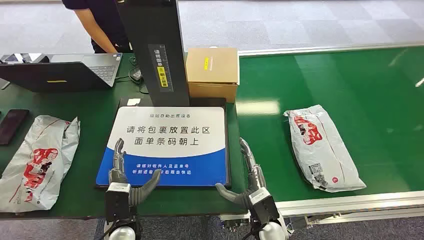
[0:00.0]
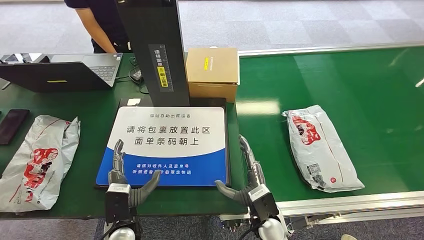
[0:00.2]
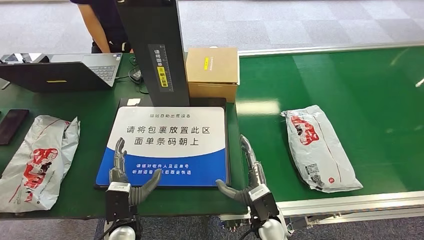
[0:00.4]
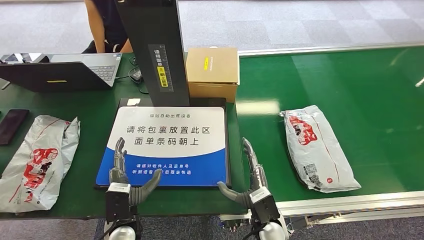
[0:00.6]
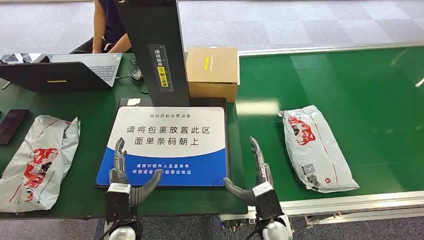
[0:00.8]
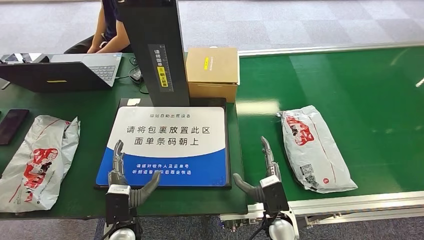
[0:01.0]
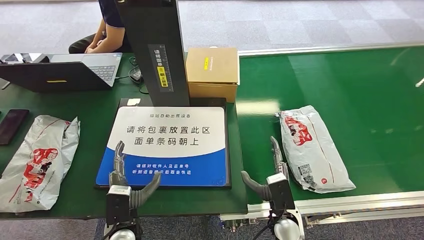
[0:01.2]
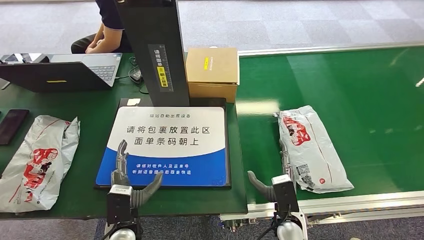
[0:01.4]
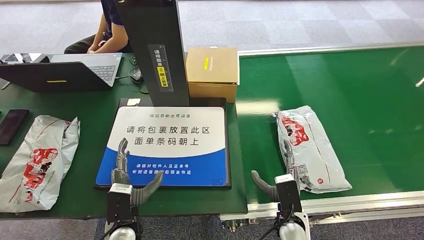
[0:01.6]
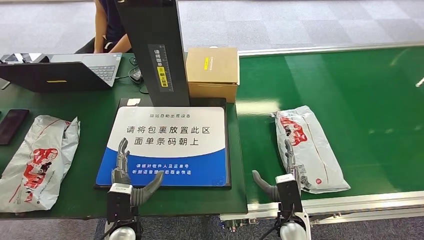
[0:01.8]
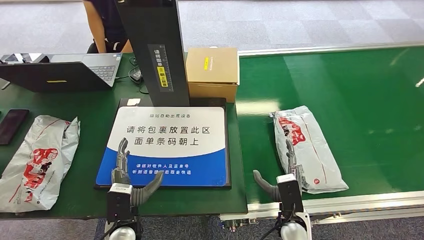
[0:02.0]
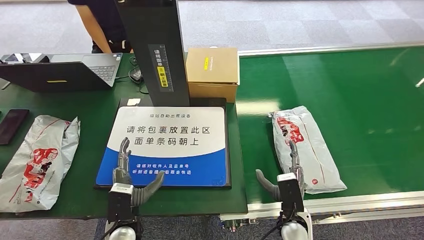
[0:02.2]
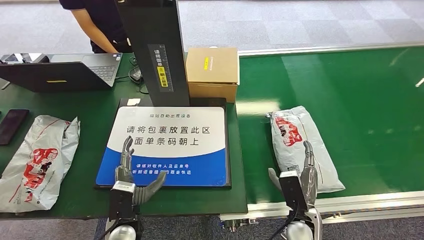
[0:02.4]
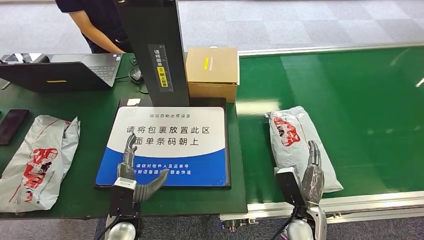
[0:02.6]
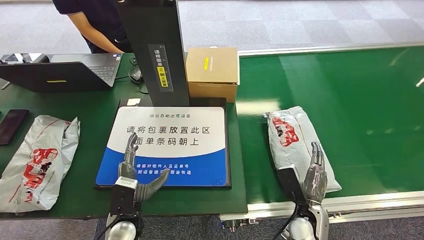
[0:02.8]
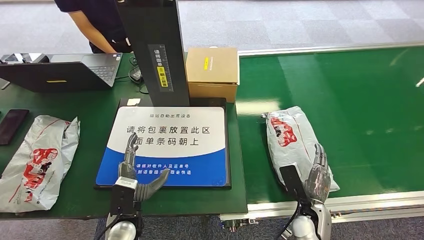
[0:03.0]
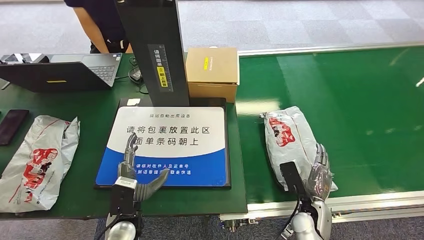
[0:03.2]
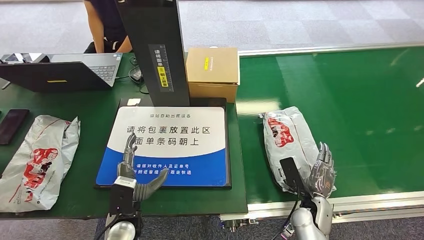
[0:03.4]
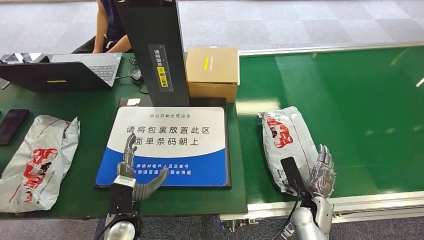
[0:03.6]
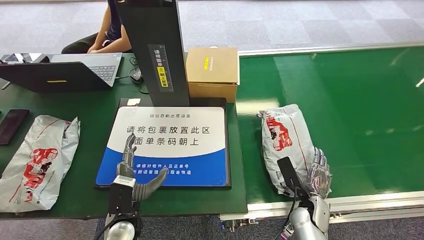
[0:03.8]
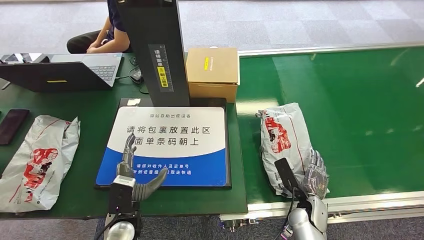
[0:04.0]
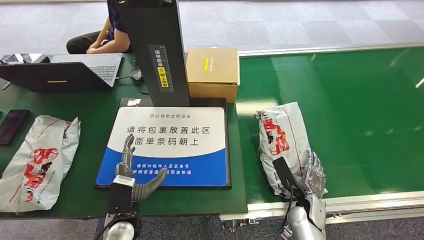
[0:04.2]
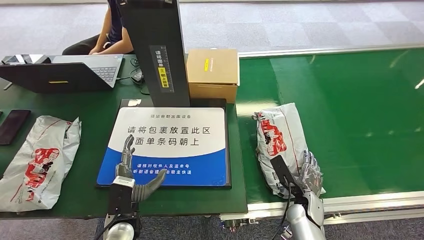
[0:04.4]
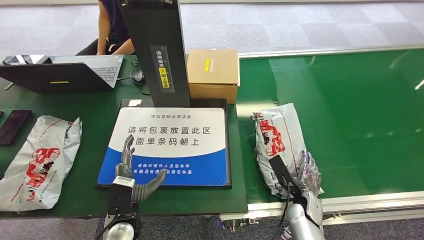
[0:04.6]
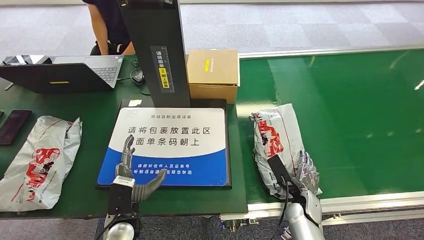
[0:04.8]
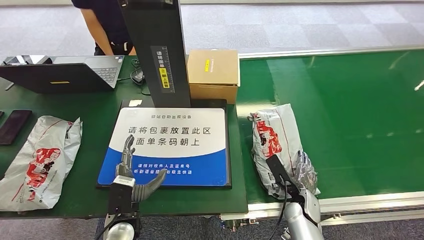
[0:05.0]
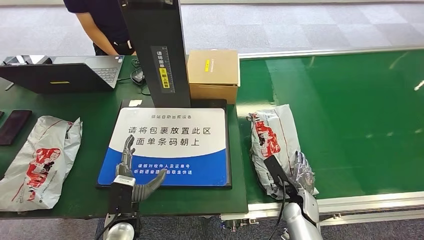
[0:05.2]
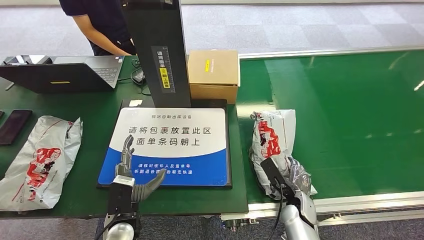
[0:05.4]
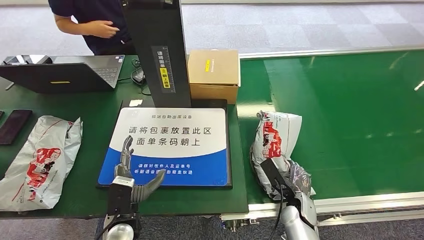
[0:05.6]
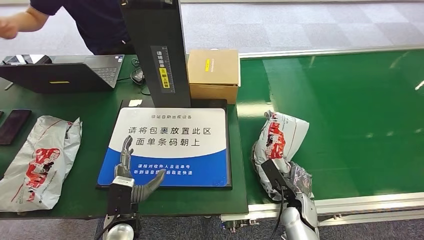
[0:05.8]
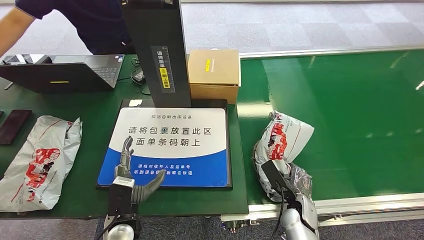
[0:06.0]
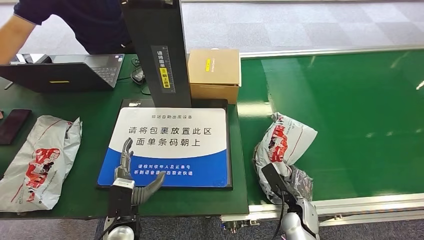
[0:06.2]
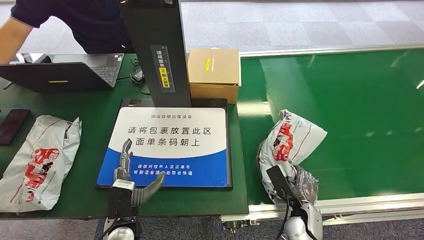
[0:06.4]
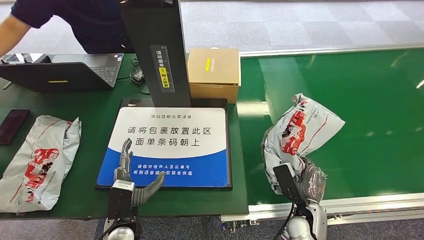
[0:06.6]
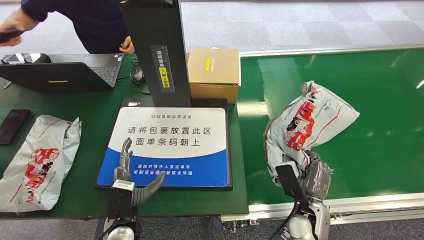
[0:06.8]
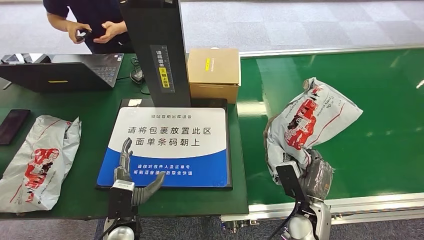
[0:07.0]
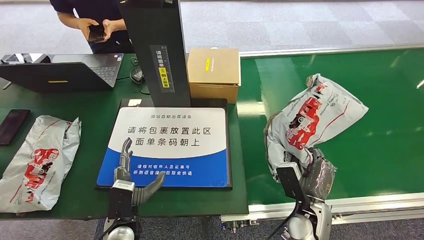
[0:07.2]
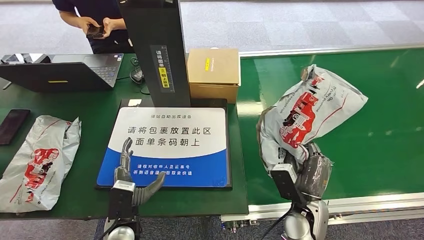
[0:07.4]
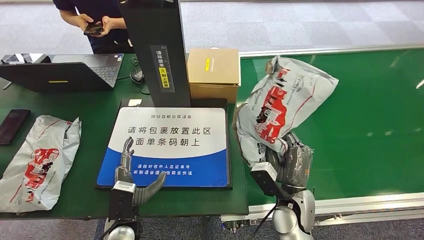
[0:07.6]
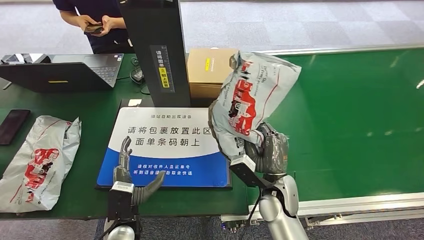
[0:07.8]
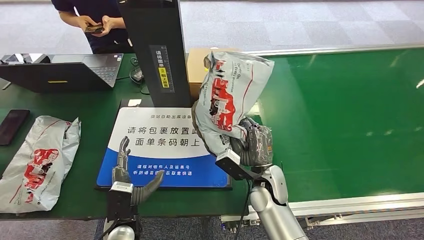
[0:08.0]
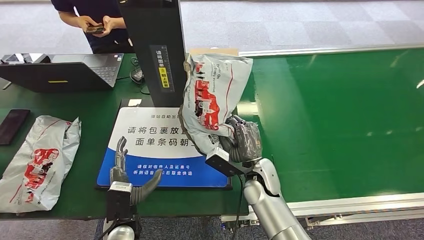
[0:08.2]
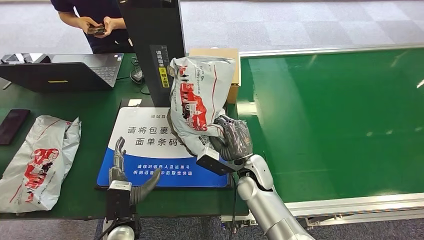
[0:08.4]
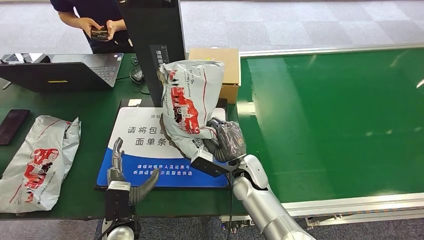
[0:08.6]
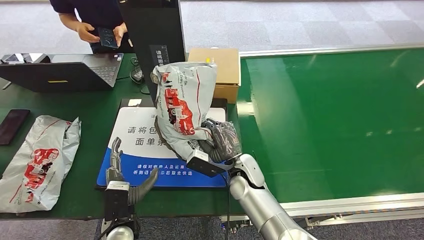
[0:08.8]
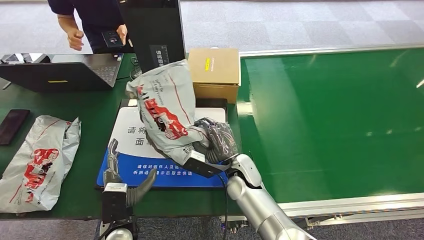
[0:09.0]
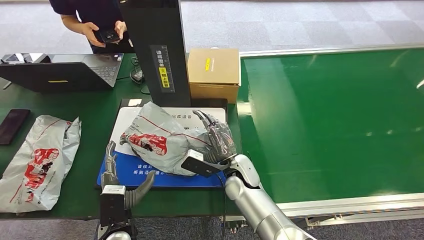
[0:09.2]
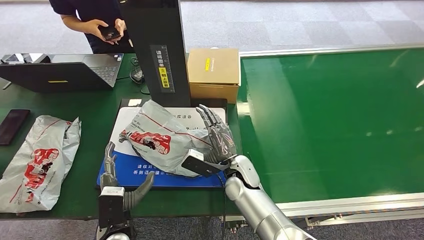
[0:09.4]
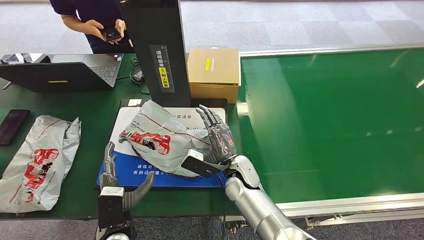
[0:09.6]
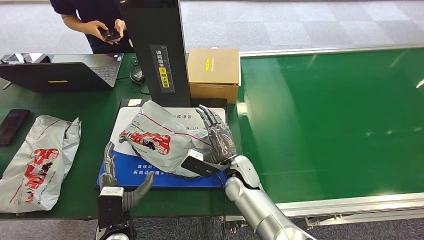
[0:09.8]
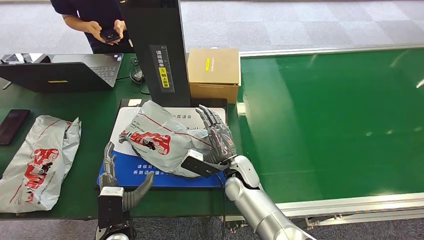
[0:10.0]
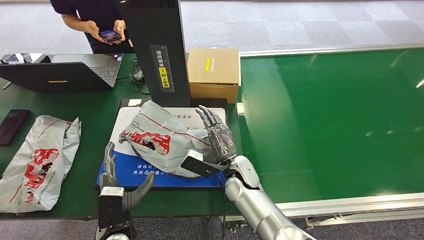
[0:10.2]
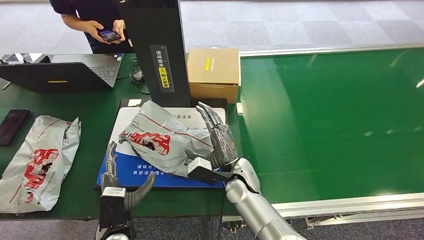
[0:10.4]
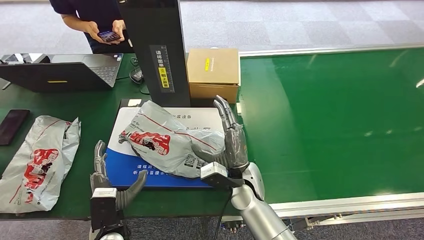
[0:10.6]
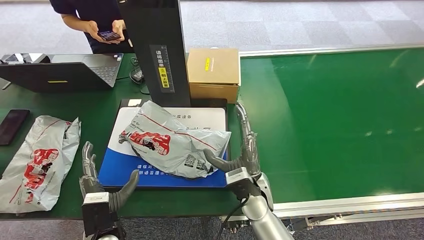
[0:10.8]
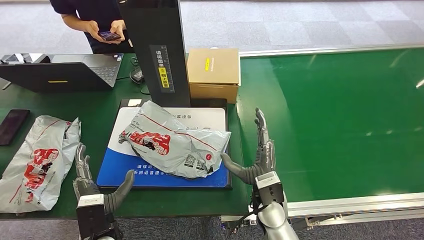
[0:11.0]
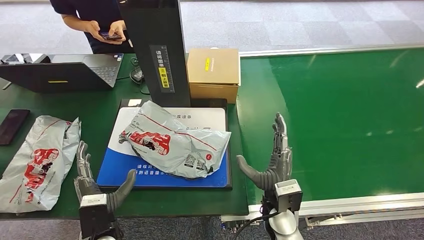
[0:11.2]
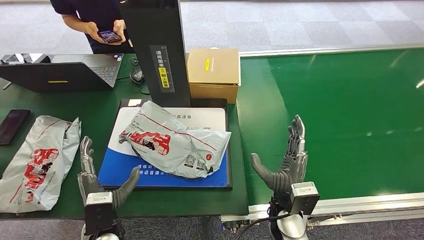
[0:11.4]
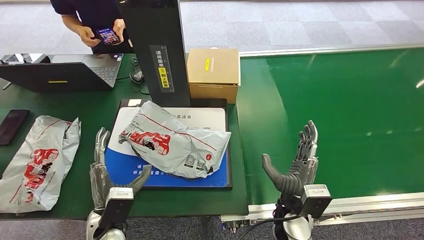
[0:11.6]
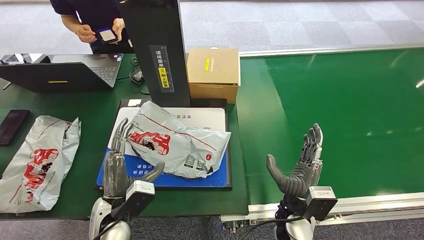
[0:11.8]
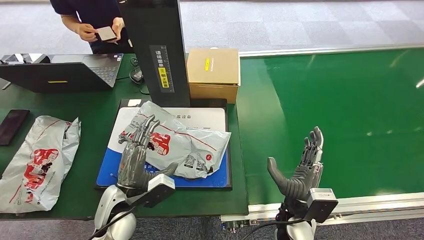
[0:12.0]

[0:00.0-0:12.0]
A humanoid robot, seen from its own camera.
Step, 0:00.0 to 0:06.6: Pick up the package from the conveyor belt.
Step, 0:06.8 to 0:11.0: Place the package onto the inbound machine.
0:01.6 to 0:03.0: The right hand travels to the right by roughly 5 cm.
0:03.0 to 0:04.4: The right hand changes place by some 5 cm.
0:04.4 to 0:06.0: There are only small adjustments of the hands.
0:06.0 to 0:07.6: The right hand heads upward, covering some 10 cm.
0:09.0 to 0:10.4: The hands make only small movements.
0:10.4 to 0:12.0: The right hand moves to the right and backward, some 15 cm. Meanwhile the left hand moves upward, approximately 5 cm.

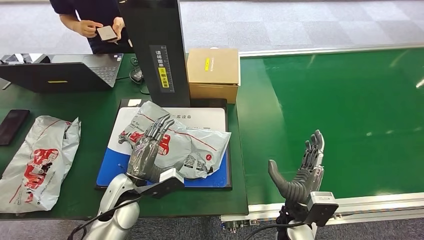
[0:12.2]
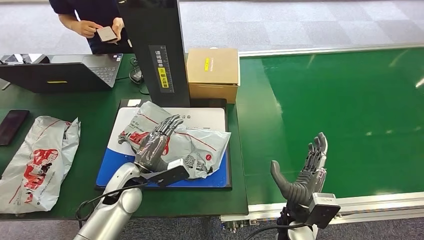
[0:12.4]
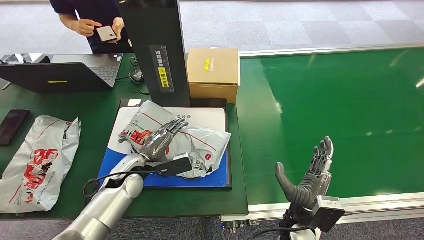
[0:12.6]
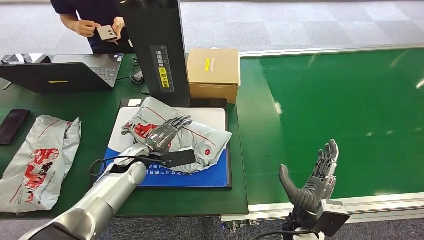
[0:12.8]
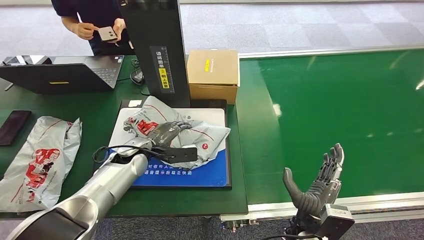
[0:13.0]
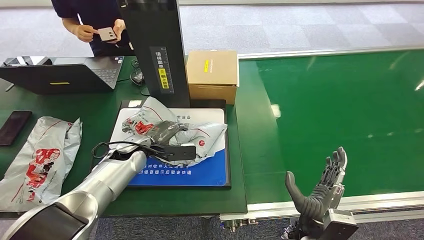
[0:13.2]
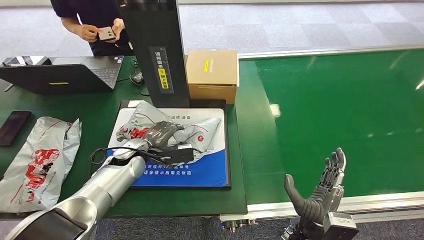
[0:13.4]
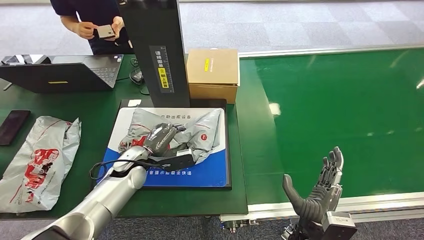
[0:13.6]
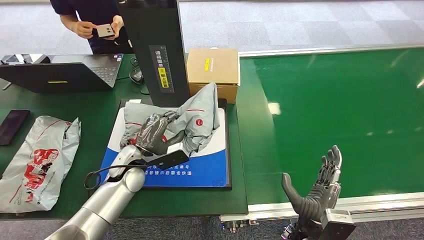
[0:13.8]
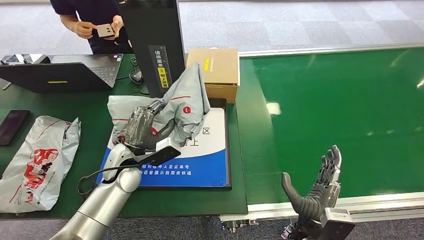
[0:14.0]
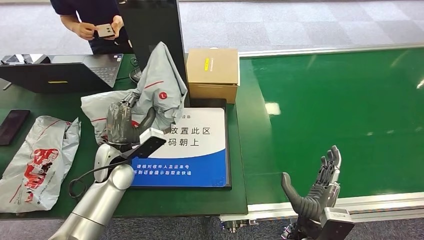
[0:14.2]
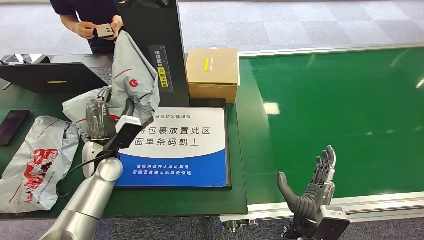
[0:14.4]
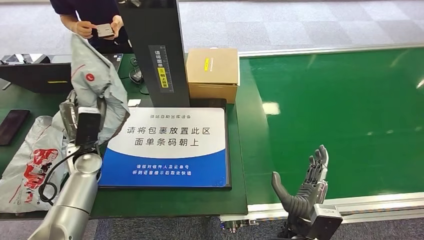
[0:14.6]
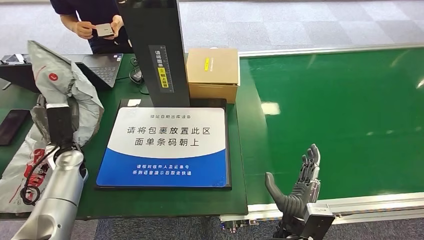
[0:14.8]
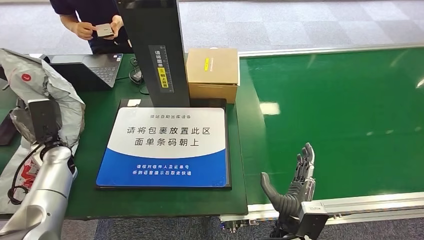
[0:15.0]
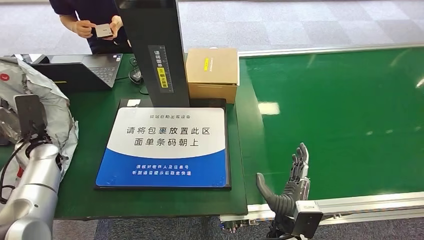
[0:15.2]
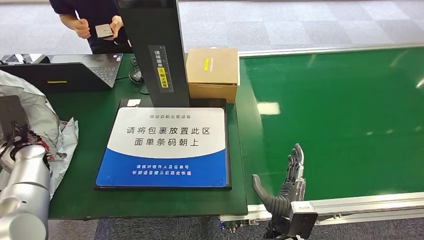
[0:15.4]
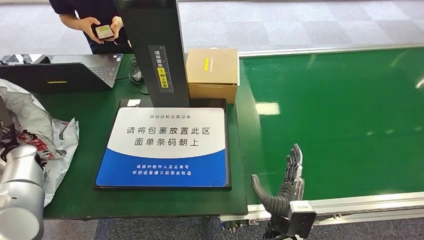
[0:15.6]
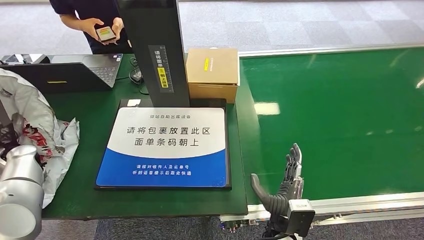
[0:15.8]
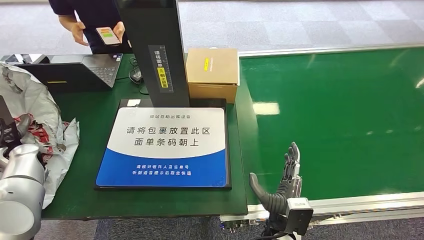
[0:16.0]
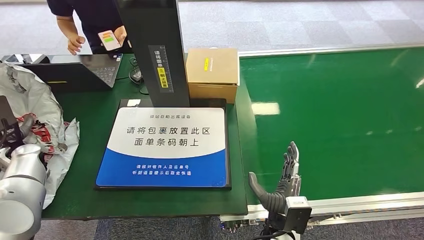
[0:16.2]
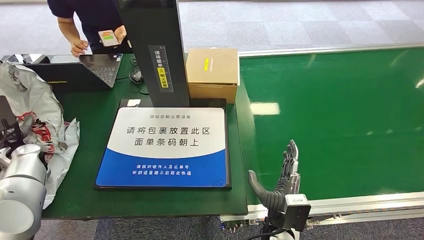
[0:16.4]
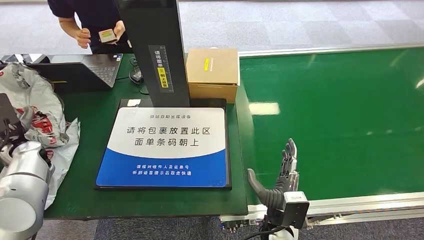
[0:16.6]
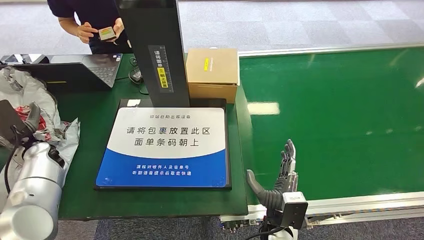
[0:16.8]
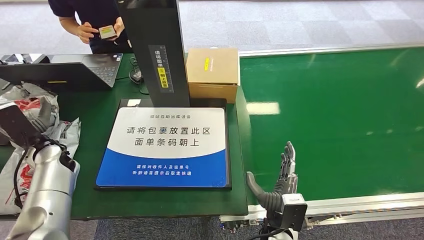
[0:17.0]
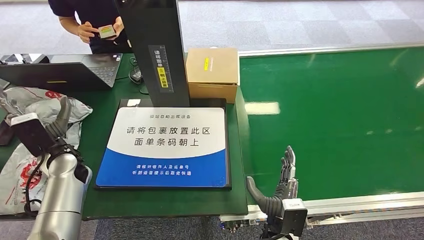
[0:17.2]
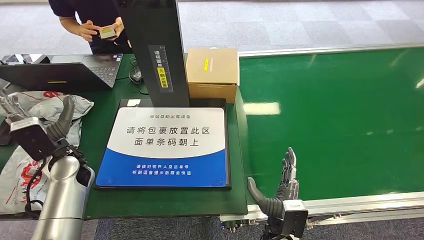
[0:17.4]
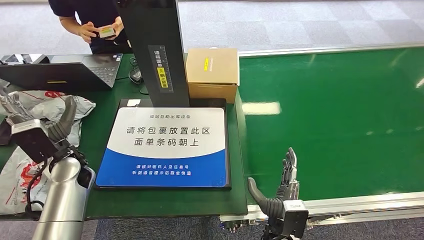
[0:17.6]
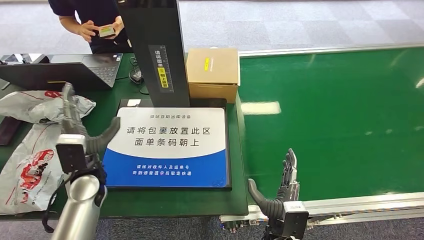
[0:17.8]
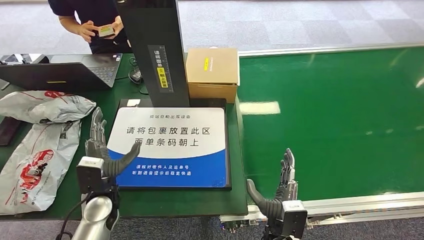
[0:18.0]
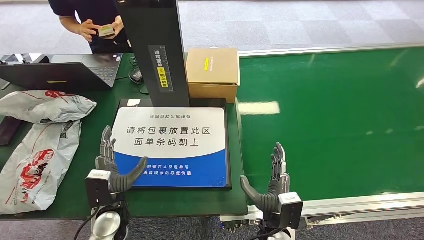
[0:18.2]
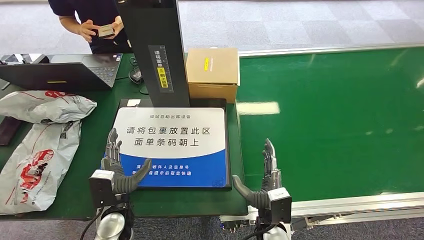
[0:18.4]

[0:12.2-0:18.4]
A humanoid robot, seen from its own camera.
Step, 0:12.2 to 0:14.4: Pick up the package from the inbound machine.
Step, 0:14.6 to 0:18.4: Place the package into the parcel locker.
0:12.2 to 0:13.8: The left hand heads forward, covering about 10 cm.
0:16.8 to 0:18.4: The left hand is displaced to the right and backward by approximately 30 cm.
